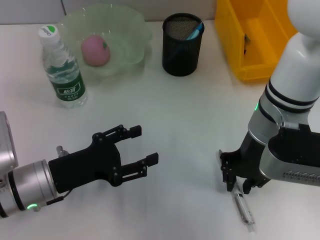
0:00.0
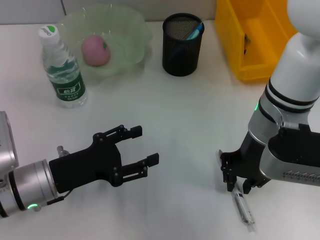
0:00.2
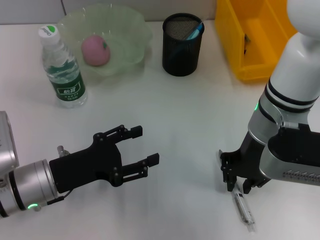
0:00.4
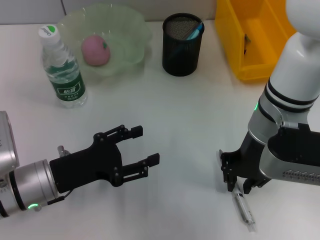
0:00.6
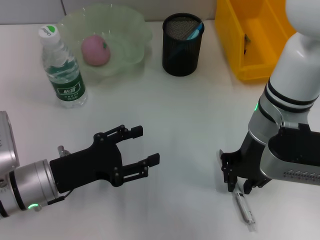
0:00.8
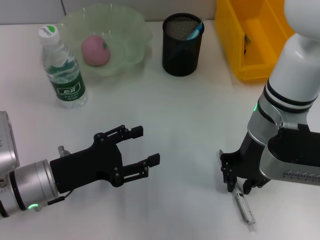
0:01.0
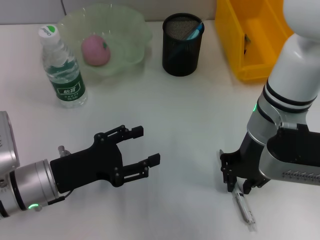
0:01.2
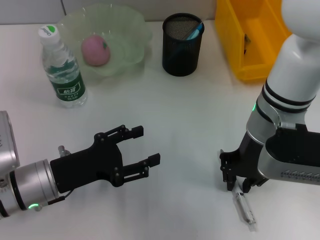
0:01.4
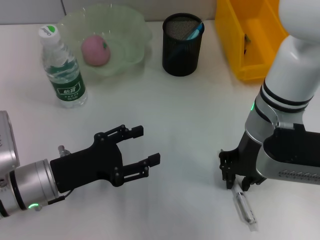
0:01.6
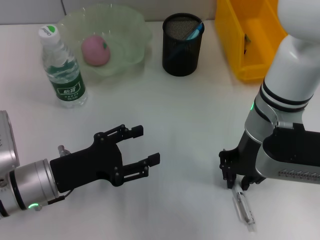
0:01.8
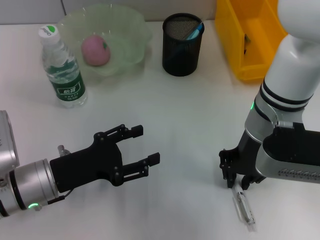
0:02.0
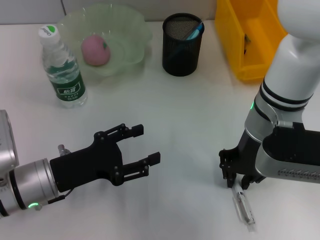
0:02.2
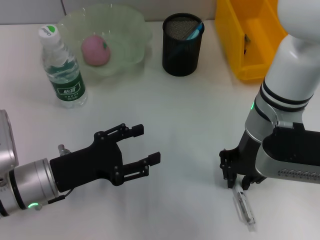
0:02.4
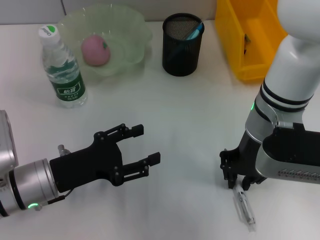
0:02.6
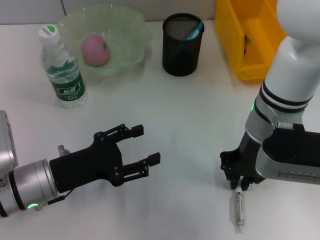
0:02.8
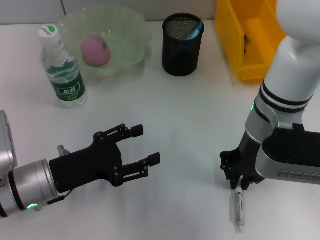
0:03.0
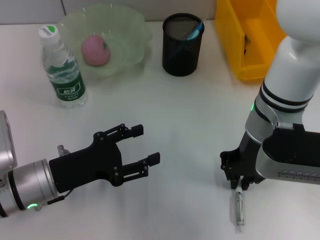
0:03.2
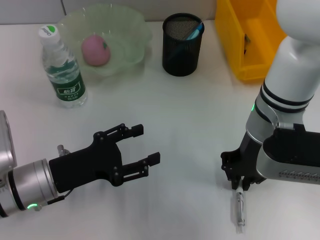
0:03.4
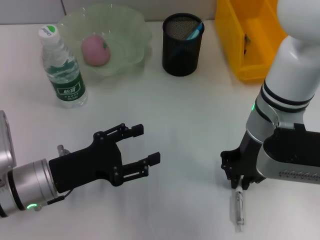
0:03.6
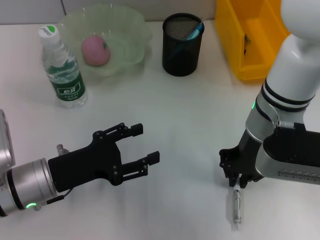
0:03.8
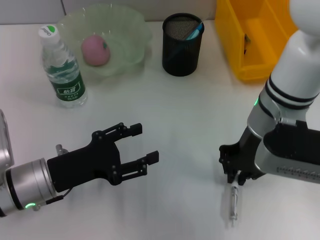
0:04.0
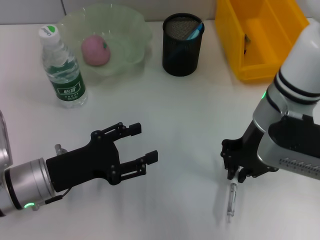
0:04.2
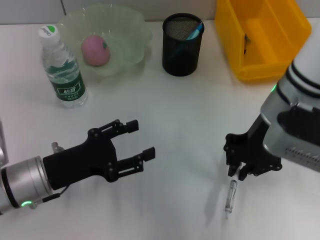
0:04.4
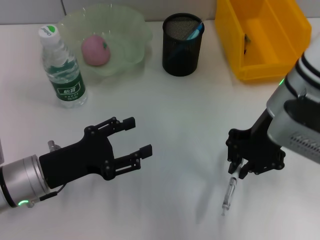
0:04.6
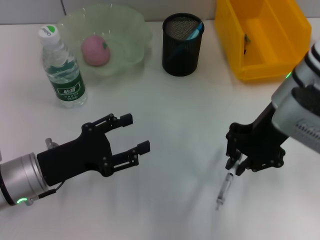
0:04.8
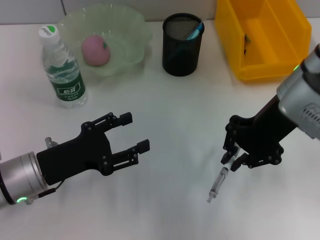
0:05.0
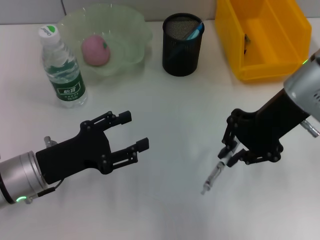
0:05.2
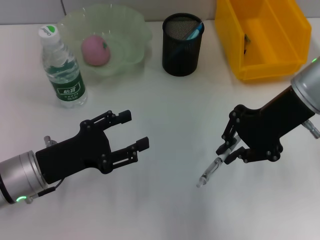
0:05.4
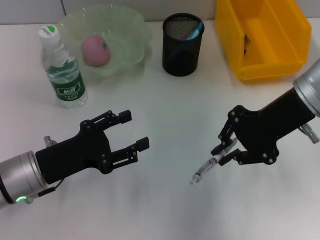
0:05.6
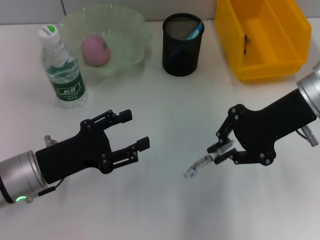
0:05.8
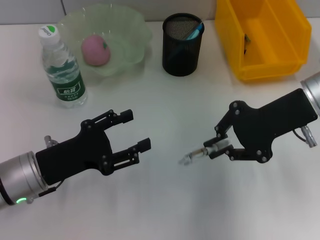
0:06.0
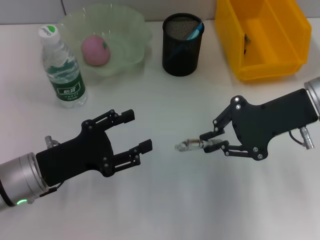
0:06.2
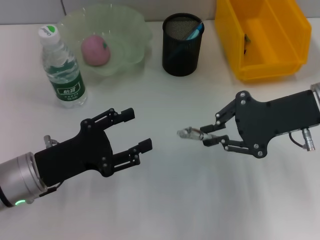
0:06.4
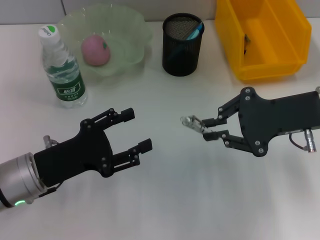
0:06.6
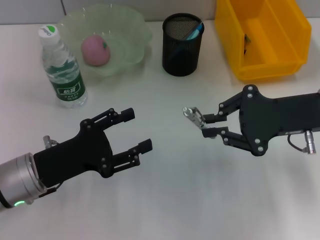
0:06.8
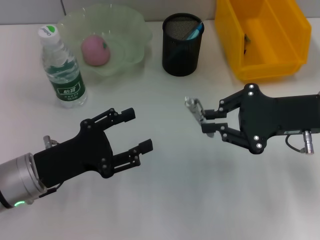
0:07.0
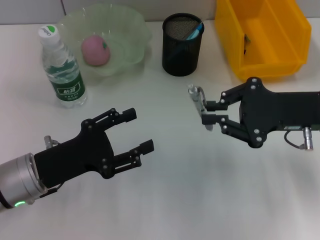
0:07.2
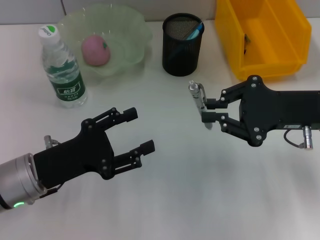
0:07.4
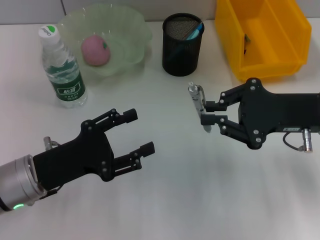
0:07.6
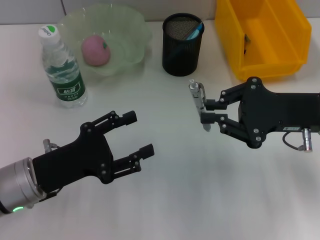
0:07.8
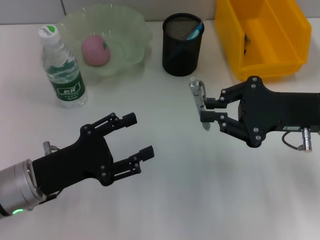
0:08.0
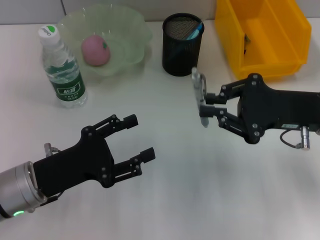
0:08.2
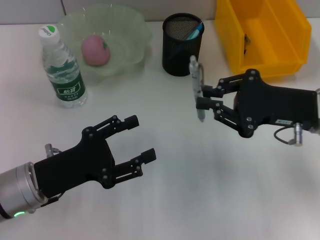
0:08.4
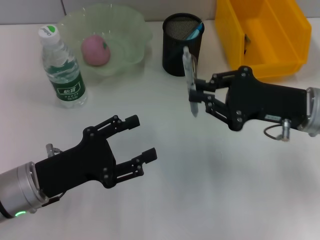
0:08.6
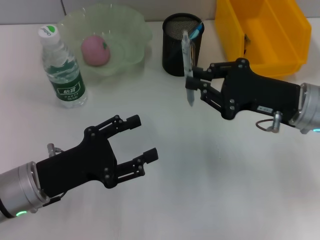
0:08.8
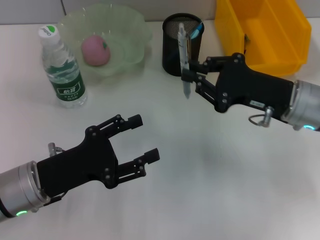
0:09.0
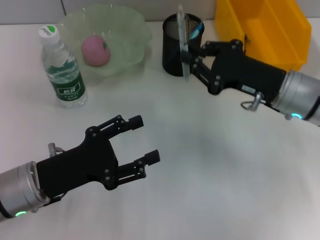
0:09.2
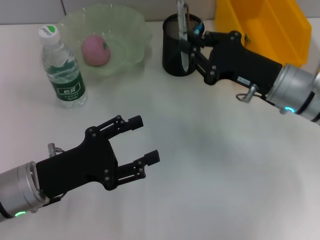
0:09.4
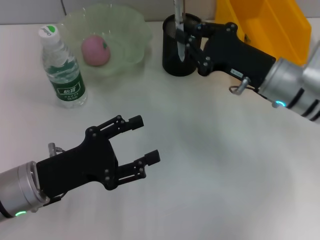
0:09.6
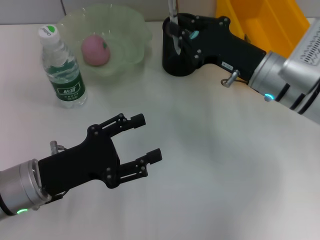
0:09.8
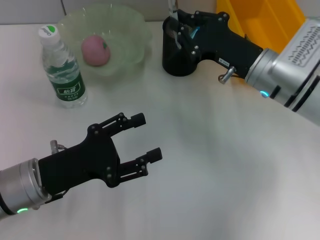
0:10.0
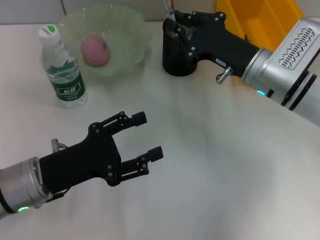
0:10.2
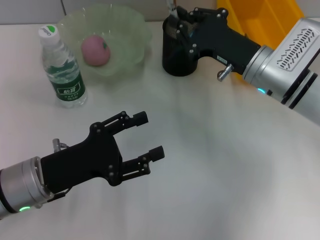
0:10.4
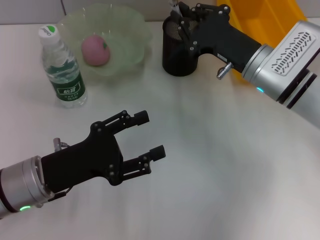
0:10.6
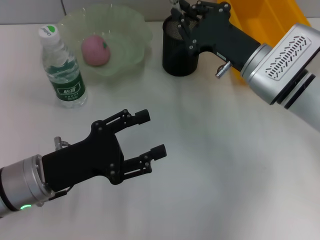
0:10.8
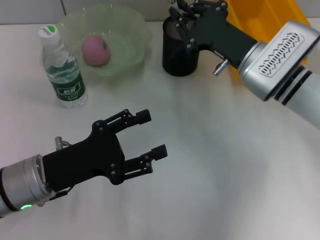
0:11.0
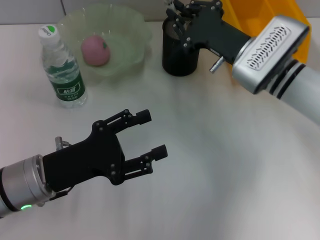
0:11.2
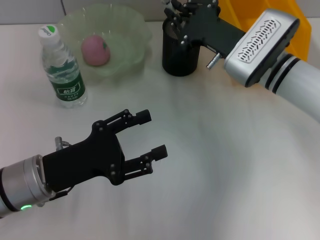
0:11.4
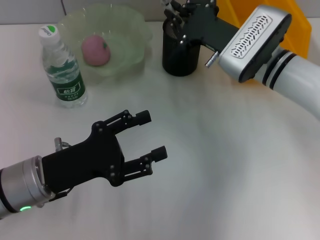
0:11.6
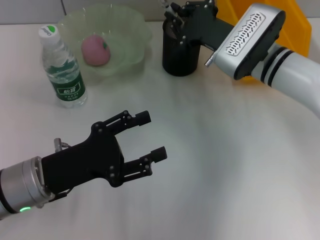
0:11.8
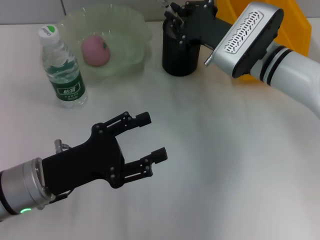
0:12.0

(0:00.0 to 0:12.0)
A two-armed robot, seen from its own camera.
Step, 0:00.0 - 0:03.4: Grab the gray spring-action pen with the right hand.
0:00.0 - 0:03.0: The two grippers keep their place.
0:03.0 - 0:04.4: The grippers make only small movements.
0:04.4 - 0:06.0: The right gripper travels to the right by some 5 cm.
0:06.0 - 0:07.6: The right gripper changes place by some 5 cm.
0:07.6 - 0:09.0: The grippers make only small movements.
0:09.0 - 0:10.4: The right gripper ends up approximately 5 cm from where it was.
0:10.4 - 0:12.0: The grippers make only small movements.

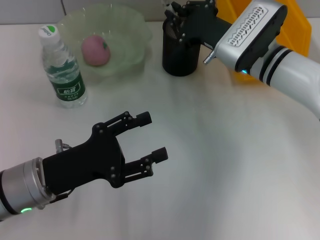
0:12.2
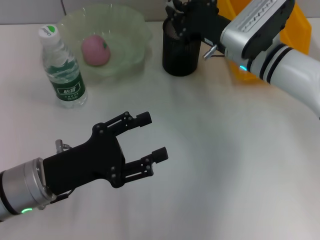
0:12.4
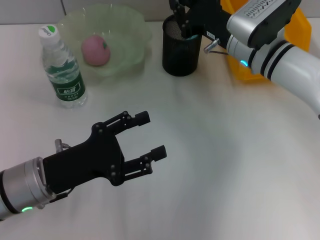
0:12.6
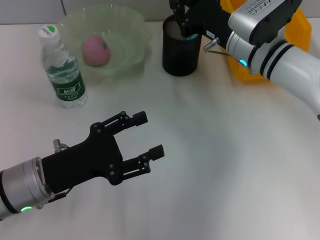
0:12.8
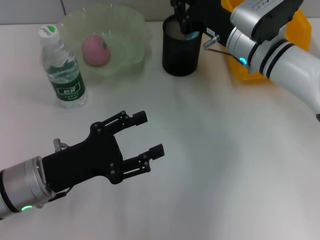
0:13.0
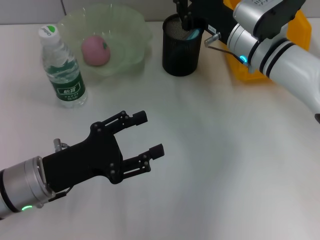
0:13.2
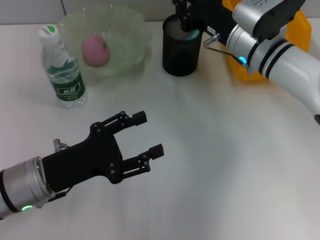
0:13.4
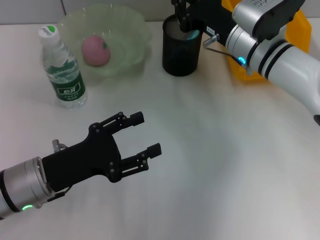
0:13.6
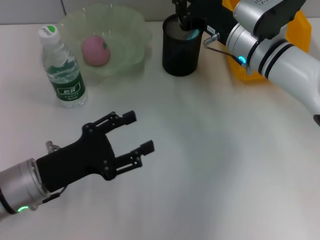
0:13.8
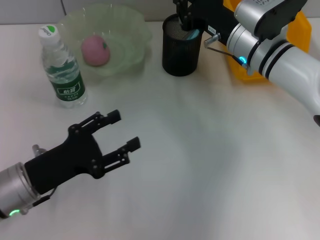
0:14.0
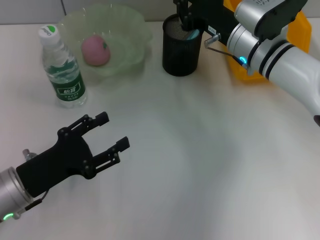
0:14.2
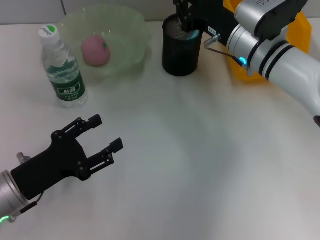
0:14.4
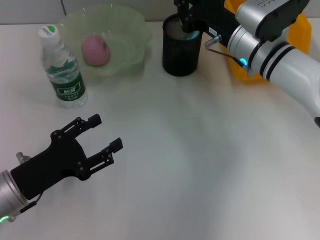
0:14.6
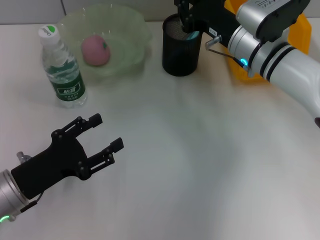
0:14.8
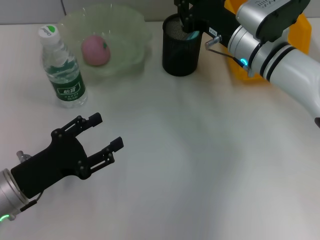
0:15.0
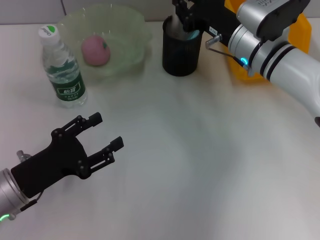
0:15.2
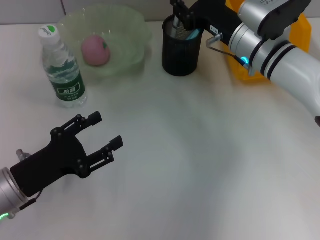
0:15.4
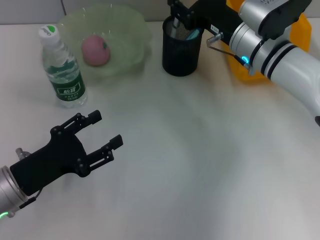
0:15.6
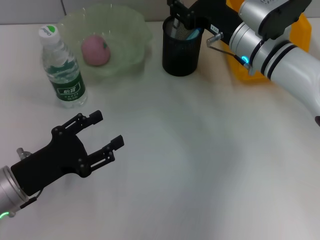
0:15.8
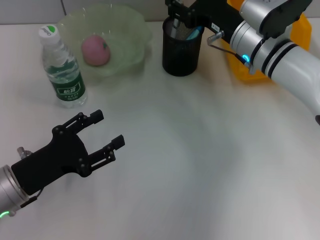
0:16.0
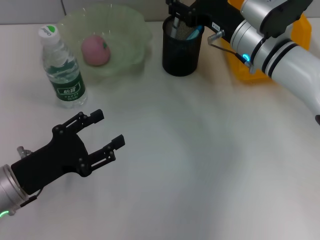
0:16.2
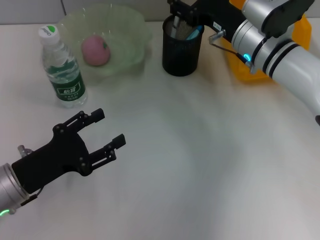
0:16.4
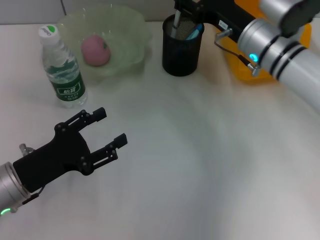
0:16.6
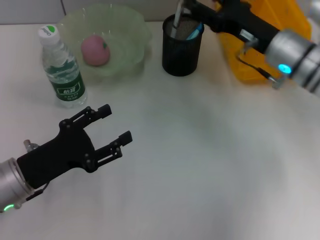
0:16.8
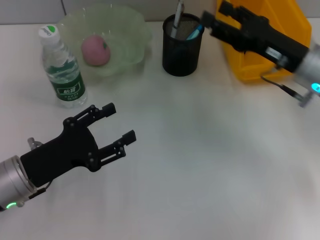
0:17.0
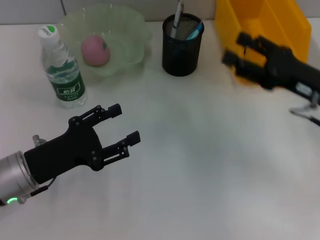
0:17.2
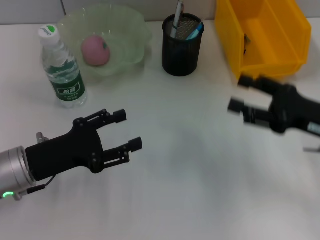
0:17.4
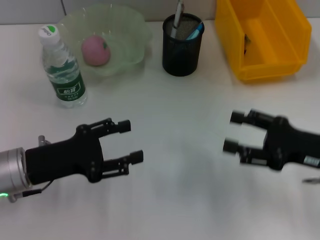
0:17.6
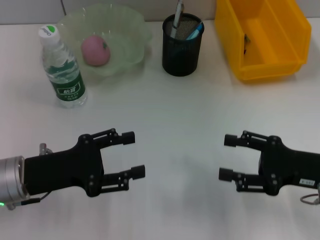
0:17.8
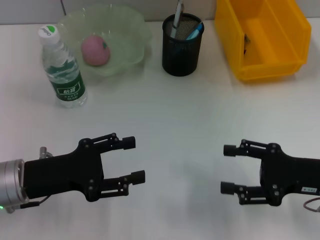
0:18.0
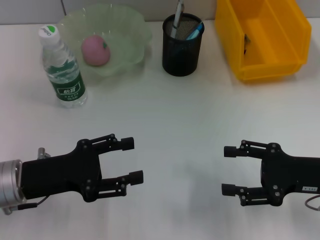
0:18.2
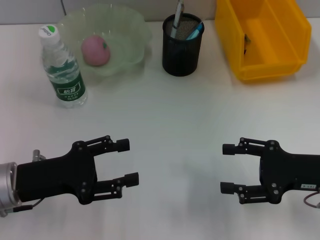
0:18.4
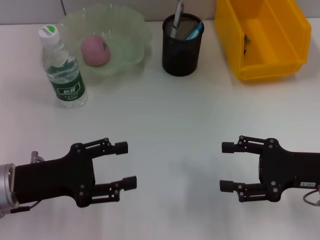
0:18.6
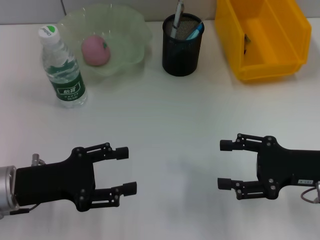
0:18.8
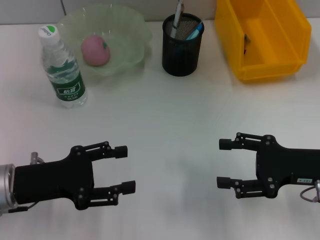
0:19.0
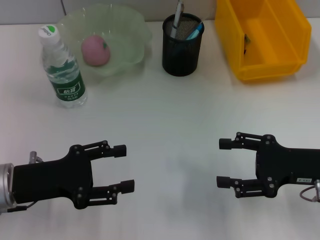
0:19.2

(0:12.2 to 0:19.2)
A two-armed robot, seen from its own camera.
Step, 0:12.2 - 0:15.4: Place the gray spring-action pen into the pen holder with the right hand.
0:13.6 - 0:15.0: There are only small adjustments of the grippers.
0:15.0 - 0:16.4: The right gripper opens its fingers.
0:16.4 - 0:17.8: The right gripper travels backward and to the right by about 20 cm.
0:17.8 - 0:19.2: The grippers move only a little.

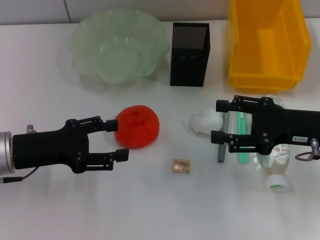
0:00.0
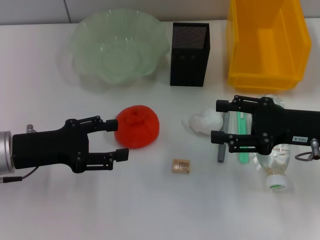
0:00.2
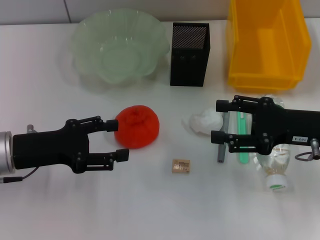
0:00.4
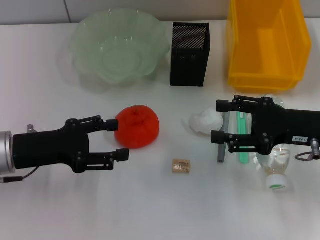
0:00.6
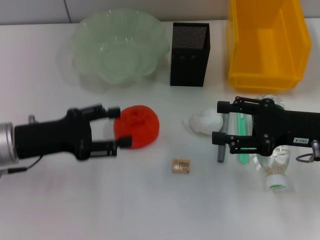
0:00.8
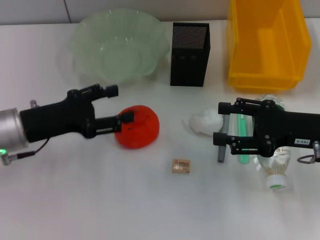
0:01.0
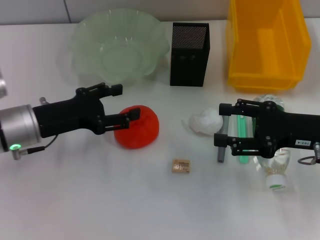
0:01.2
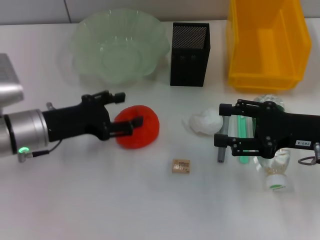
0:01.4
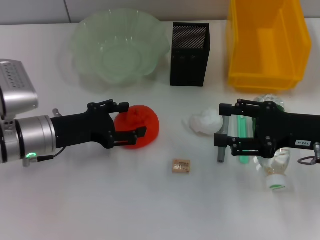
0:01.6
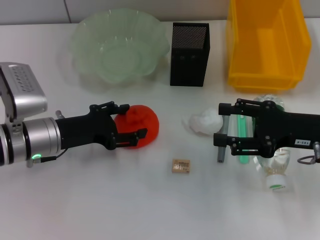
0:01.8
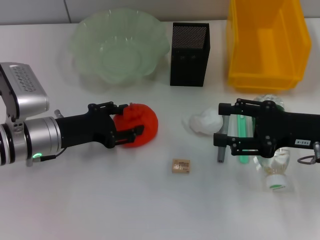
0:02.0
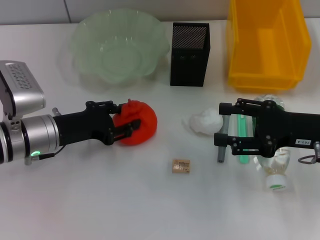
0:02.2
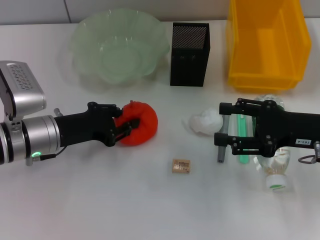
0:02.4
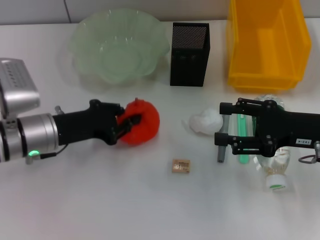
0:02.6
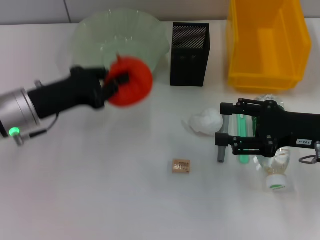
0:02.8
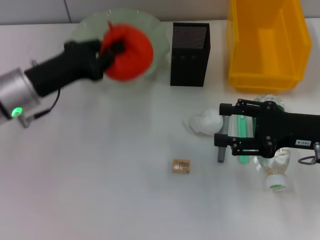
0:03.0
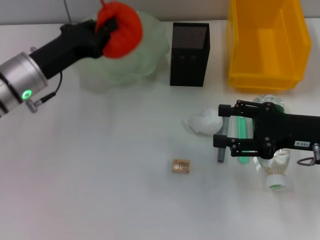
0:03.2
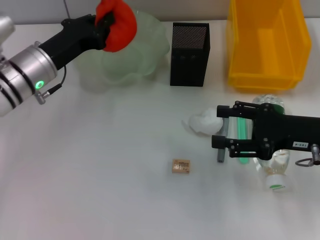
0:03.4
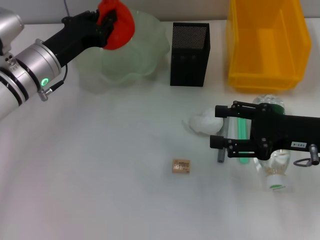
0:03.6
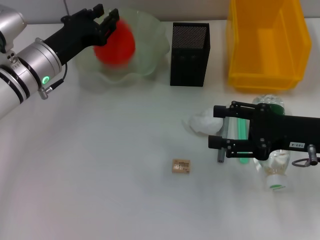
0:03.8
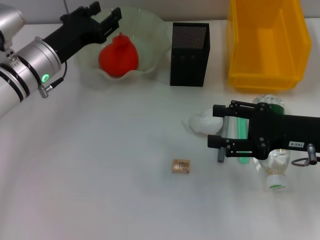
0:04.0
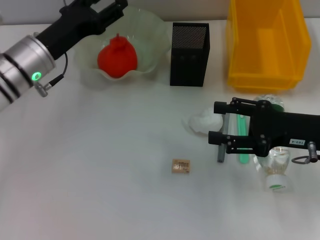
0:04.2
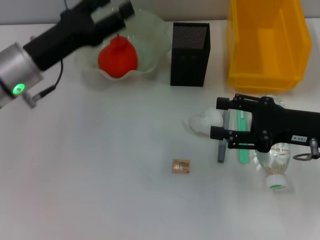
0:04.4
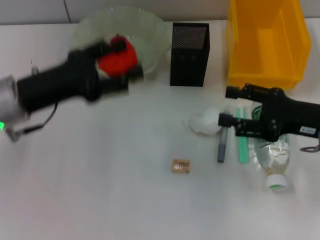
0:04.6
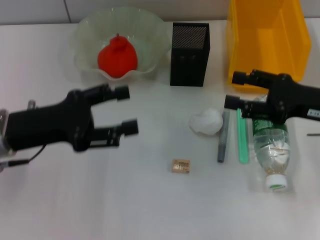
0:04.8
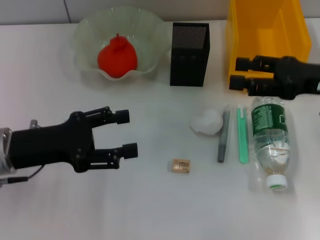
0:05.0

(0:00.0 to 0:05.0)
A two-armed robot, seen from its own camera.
Step, 0:00.0 - 0:02.4: Grab the orange with the left hand.
Step, 0:02.6 - 0:04.0: Place the orange into the fruit bowl with the left hand.
0:00.0 - 0:01.6: The left gripper ends up about 5 cm from where it was.
0:01.6 - 0:03.4: The left gripper shifts about 5 cm forward, and closes.
0:03.4 - 0:05.0: The right gripper goes some 5 cm upward. Meanwhile the left gripper is displaced backward by some 10 cm, and opens.
